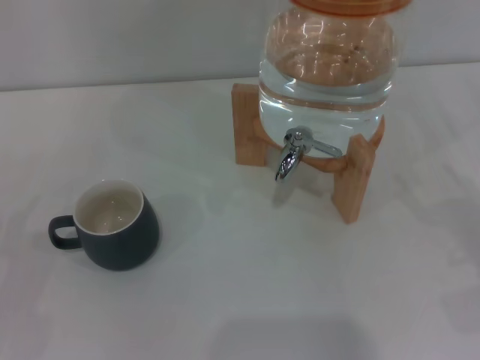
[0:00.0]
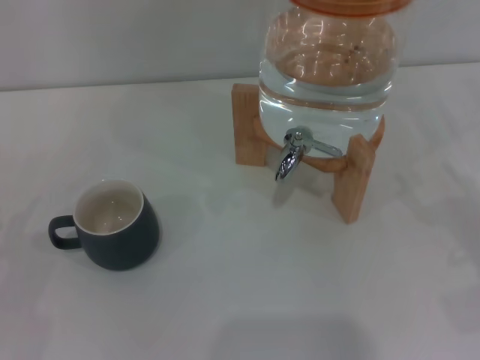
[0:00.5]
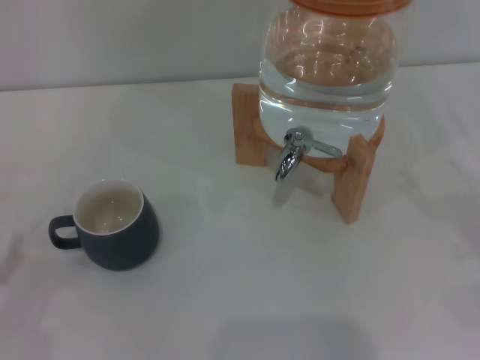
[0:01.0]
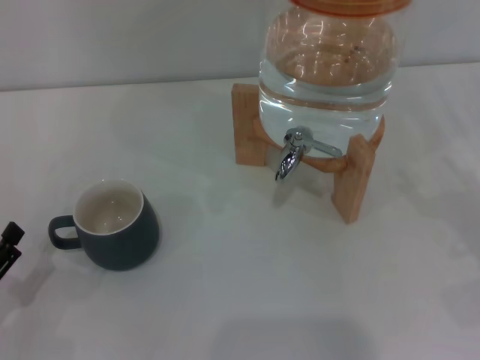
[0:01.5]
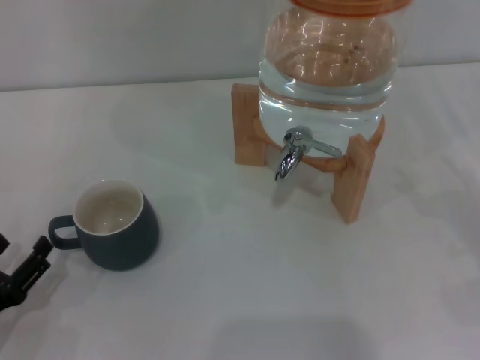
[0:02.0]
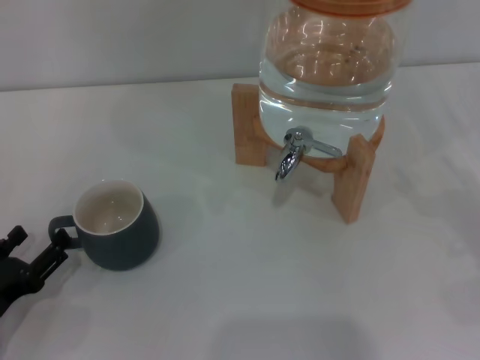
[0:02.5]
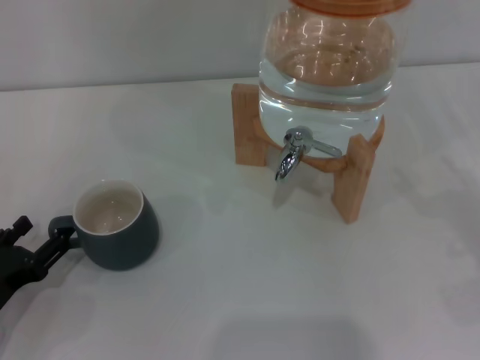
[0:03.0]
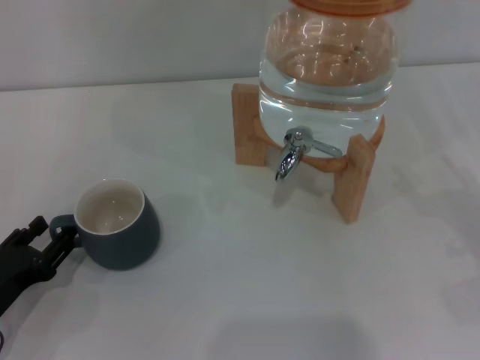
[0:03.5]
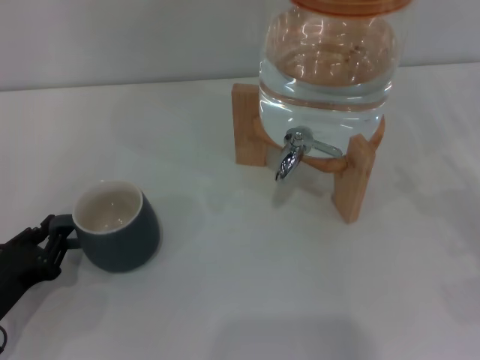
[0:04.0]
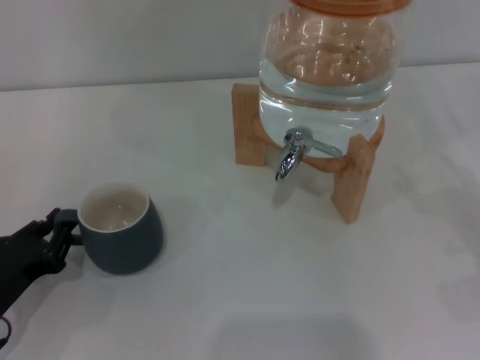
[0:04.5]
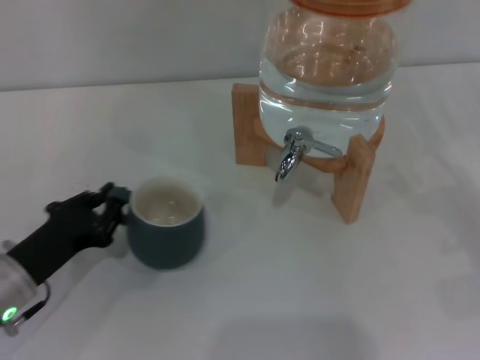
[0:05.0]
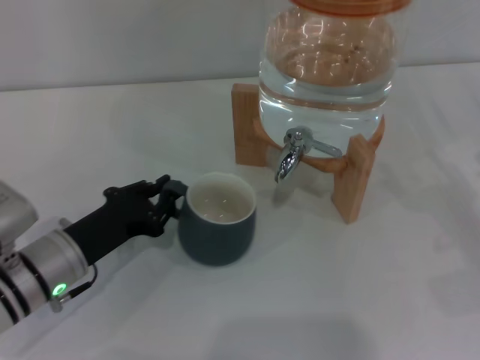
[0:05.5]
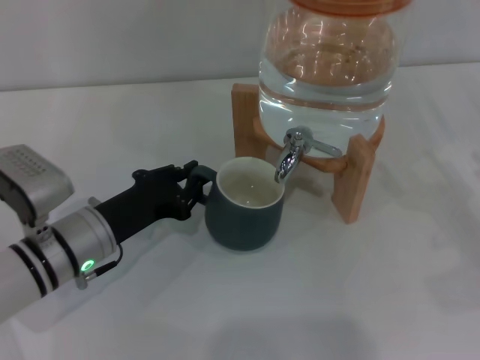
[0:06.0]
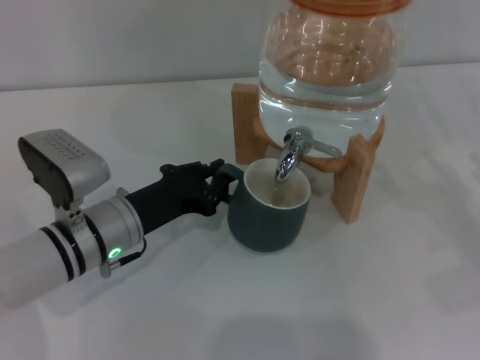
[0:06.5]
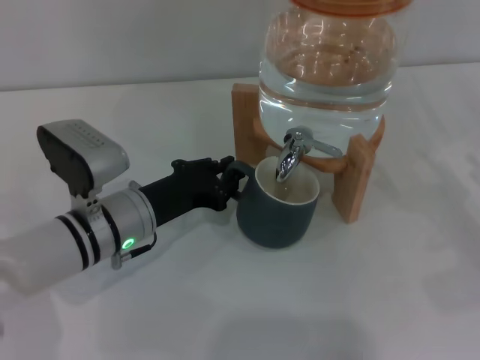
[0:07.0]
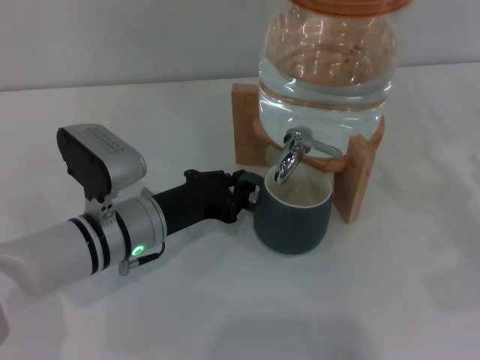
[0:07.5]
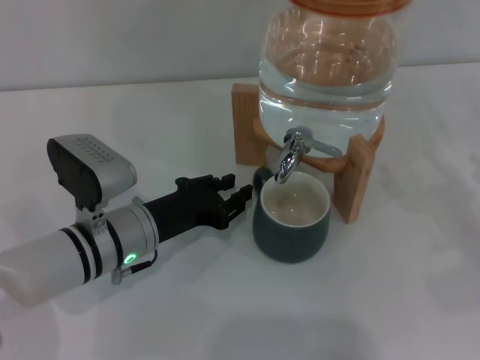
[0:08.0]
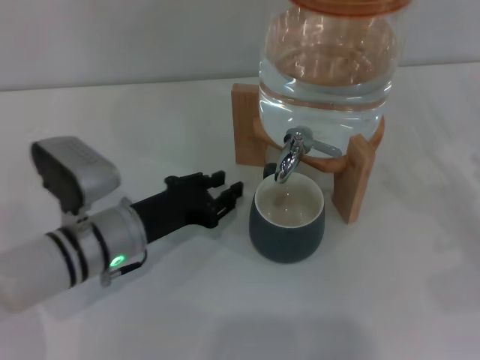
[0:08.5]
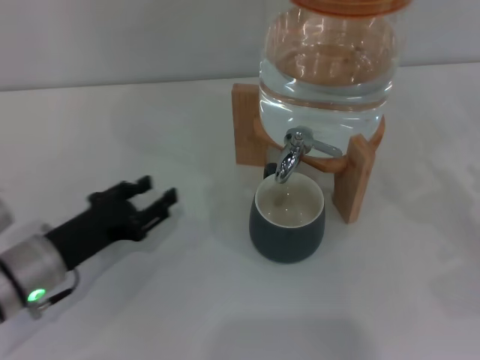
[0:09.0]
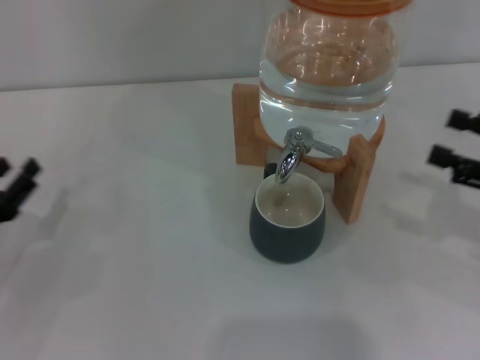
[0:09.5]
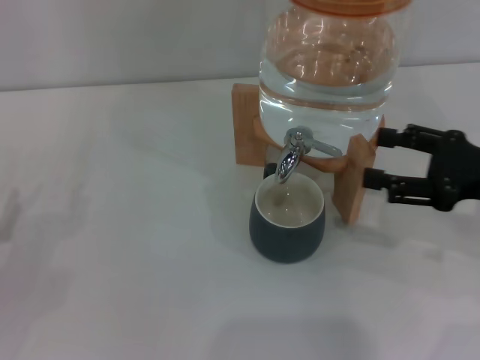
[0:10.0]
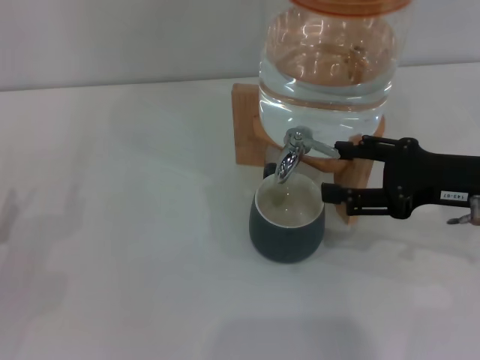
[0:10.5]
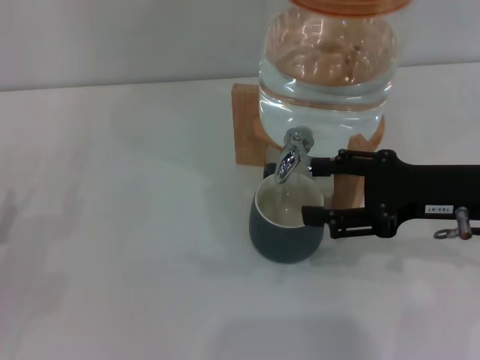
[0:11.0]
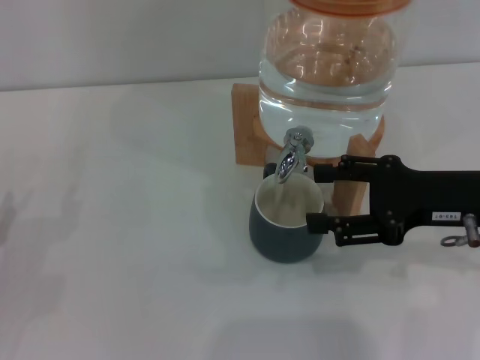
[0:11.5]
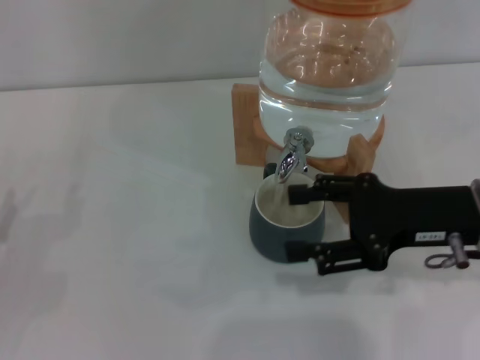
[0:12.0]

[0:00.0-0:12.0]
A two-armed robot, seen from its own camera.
Task of the whole recording: the left gripper pick up the black cup and place it horizontally under the faucet, the right gripper turn on the faucet to fill the cup, and then turn off the faucet.
Step, 0:00.0 to 0:08.5: Move the cup beneath the water dispenser nozzle with the left gripper.
Step, 0:09.0 to 0:11.5: Open the dispenser valve and fill the cup with water with the right gripper.
0:00.0 to 0:02.0: The left gripper shifts approximately 10 cm downward and to the right.
0:02.0 to 0:04.0: The left gripper closes its fingers.
0:04.0 to 0:06.0: The left gripper goes approximately 15 cm to the right and forward.
0:06.0 to 0:08.0: The grippers stay close to where they were, moving slightly.
0:08.0 to 0:10.0: The left gripper goes approximately 20 cm to the left, and opens, while the right gripper heads to the left and upward, covering approximately 10 cm.
0:10.0 to 0:12.0: The right gripper moves to the left, some 5 cm.

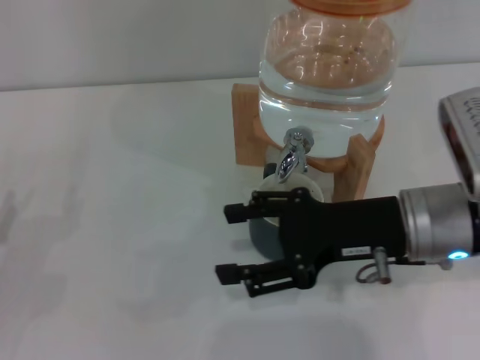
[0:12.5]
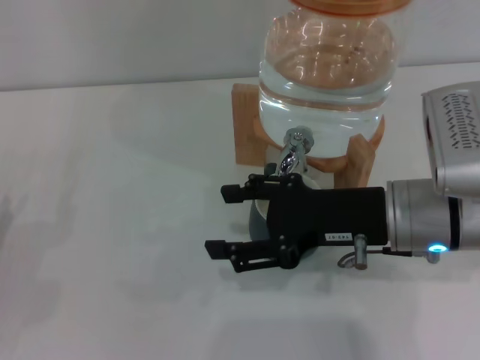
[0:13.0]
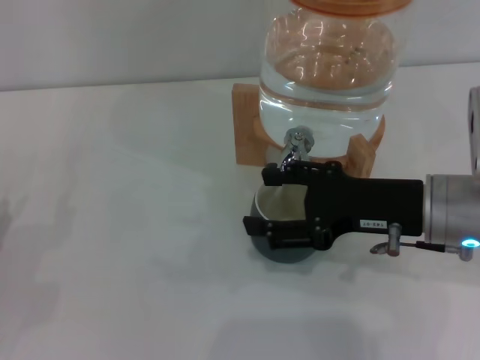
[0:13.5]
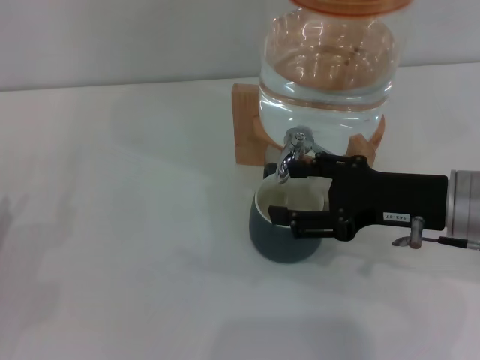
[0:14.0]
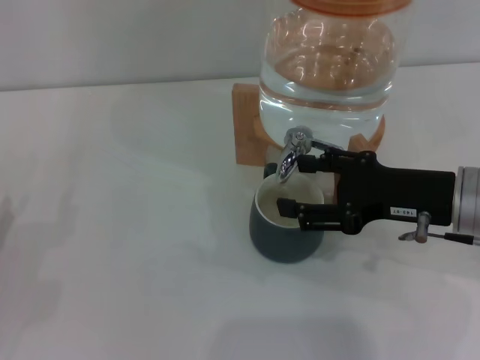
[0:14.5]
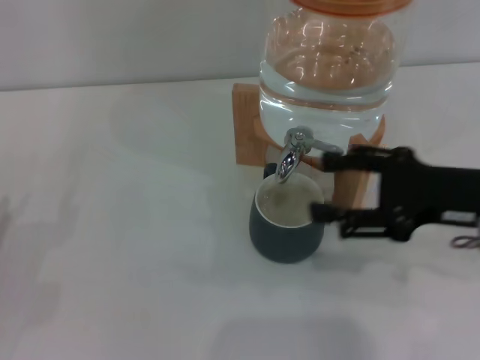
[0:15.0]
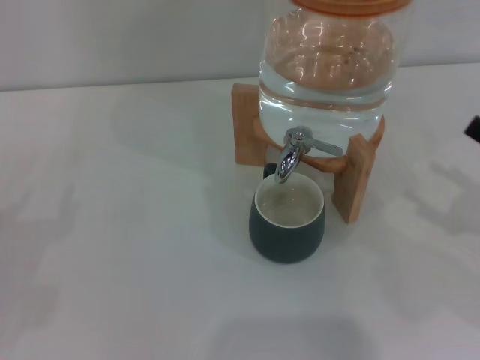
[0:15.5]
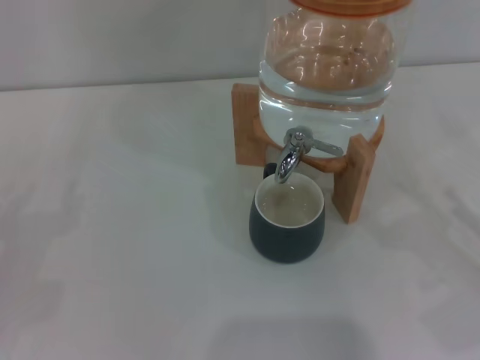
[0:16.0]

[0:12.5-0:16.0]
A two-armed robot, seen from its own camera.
Task of the whole recording: the left gripper pick up the black cup and place it horizontally under the faucet, the right gripper turn on the faucet to fill the cup, and then turn off the faucet.
Step, 0:12.5 to 0:15.0: Close the dispenser valve with the right gripper.
0:12.5 to 0:14.5: The grippers stay close to where they were, moving slightly.
0:14.5 to 0:16.0: The right gripper goes some 20 cm to the right, backward and downward.

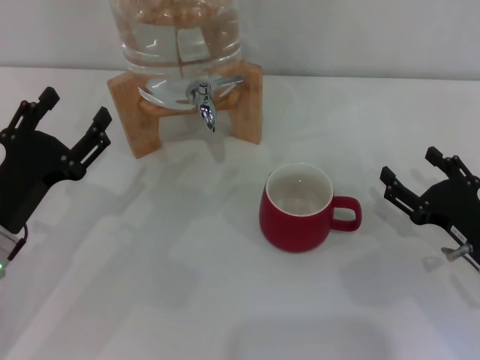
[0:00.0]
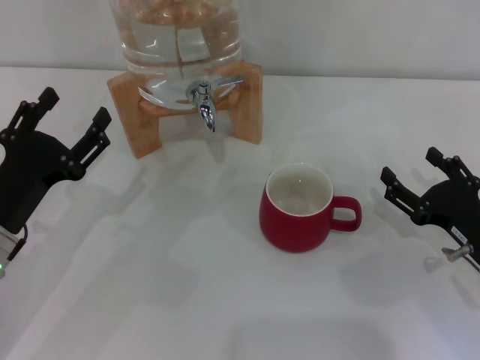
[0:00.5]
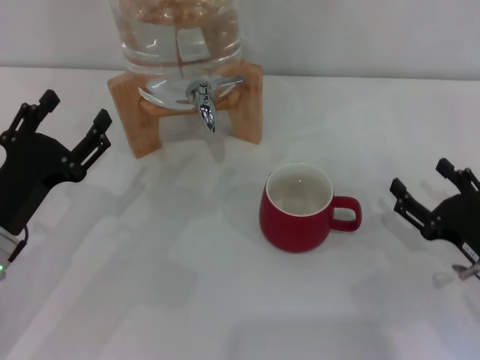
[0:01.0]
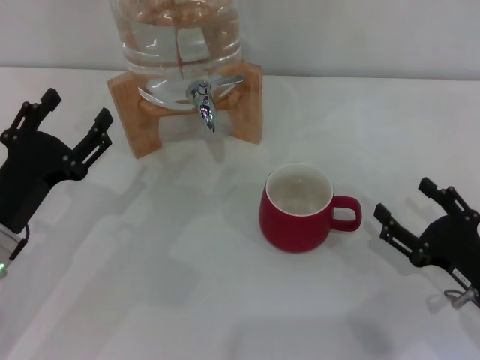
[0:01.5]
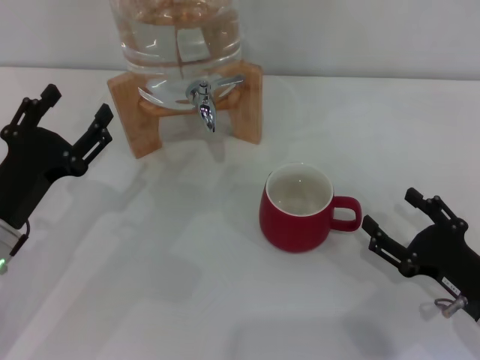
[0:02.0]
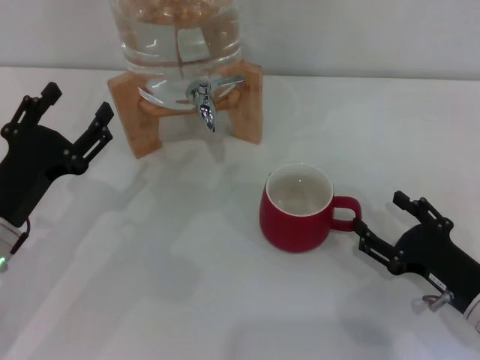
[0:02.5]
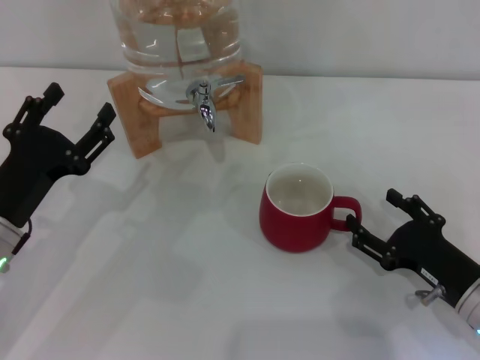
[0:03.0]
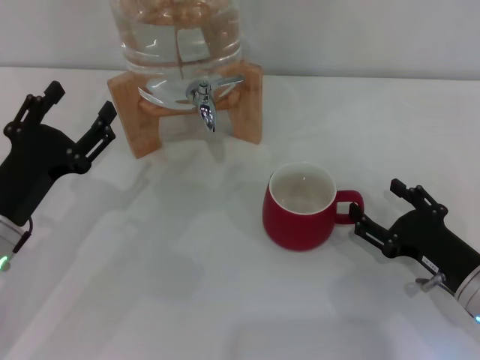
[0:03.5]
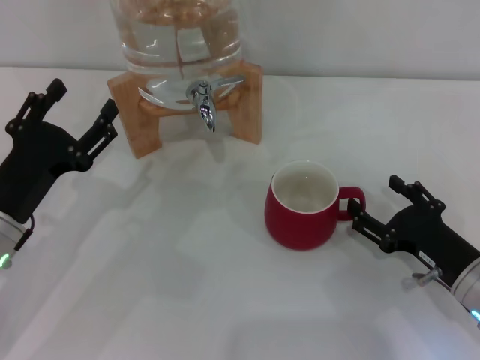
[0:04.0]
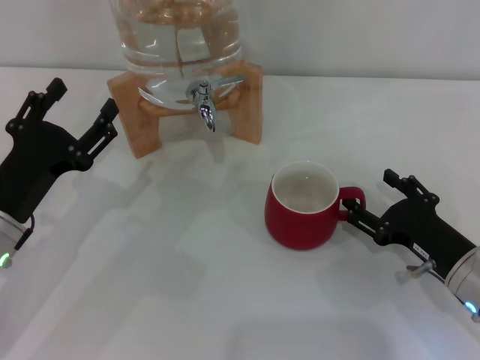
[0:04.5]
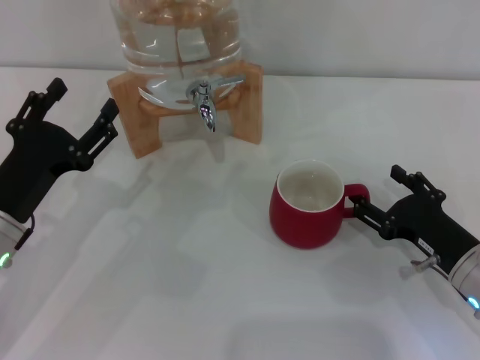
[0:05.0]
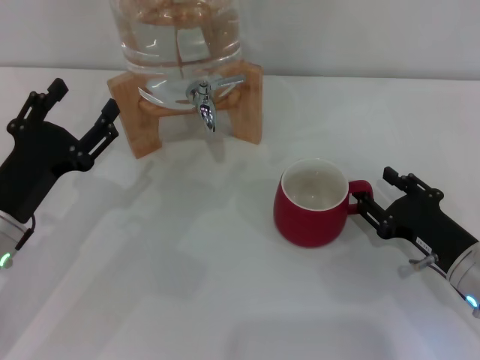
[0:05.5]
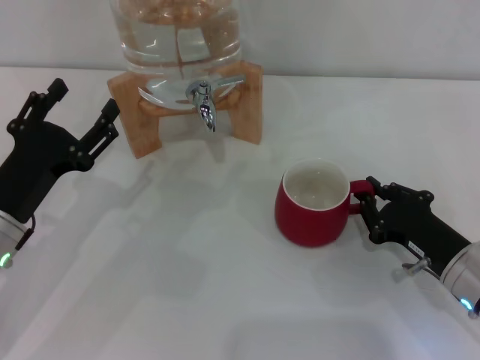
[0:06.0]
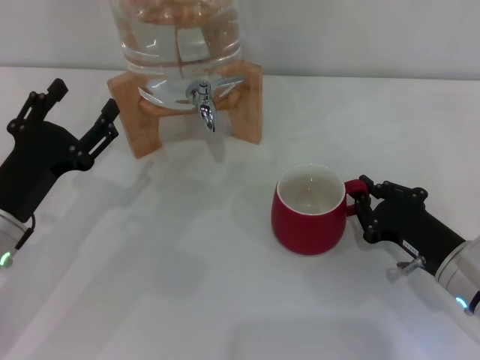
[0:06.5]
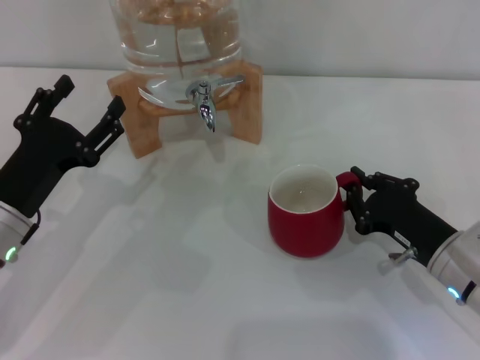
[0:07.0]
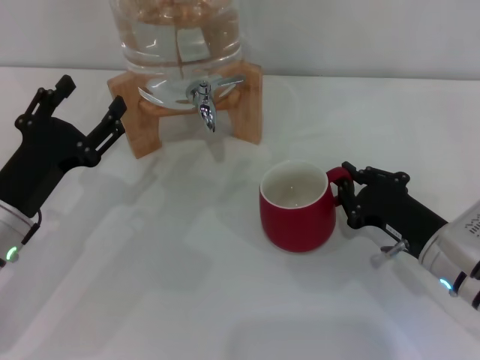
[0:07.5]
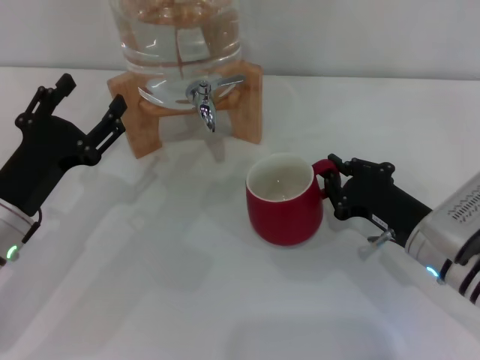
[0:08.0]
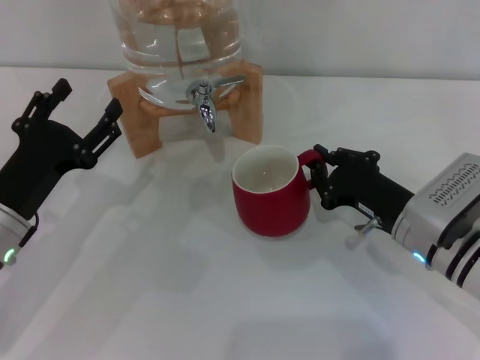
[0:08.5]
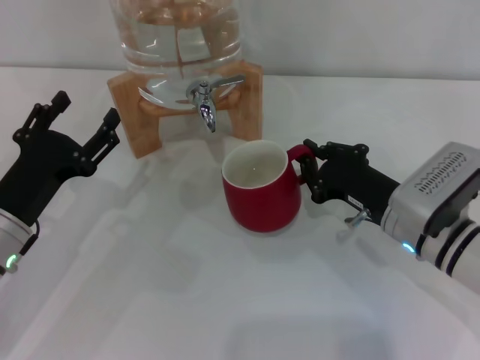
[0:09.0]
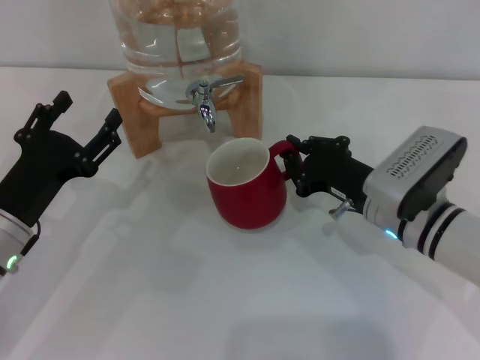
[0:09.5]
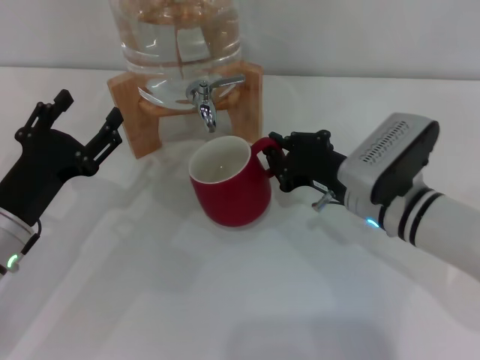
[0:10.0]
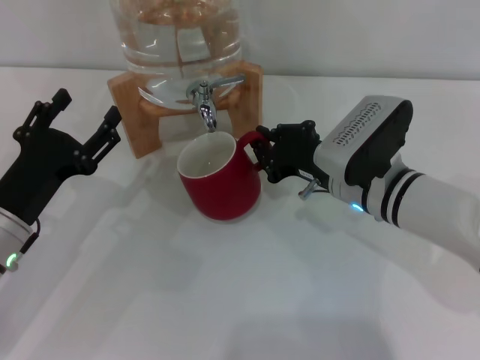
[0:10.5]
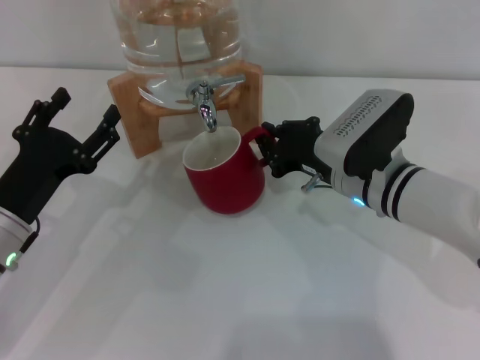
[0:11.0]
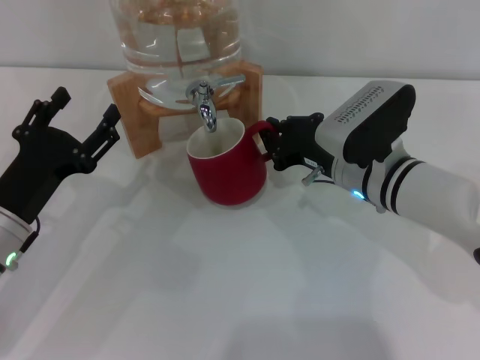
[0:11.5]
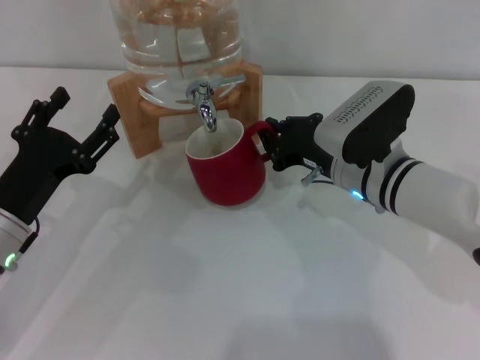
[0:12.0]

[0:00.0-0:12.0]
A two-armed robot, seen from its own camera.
Task of the whole recording: the right gripper pick up the red cup and place it horizontally under the faucet, the left gripper turn on the faucet to fill the cup, and then turn off the faucet.
0:00.0 to 0:04.0: The grippers make only small movements.
0:04.0 to 0:06.0: The right gripper closes its fingers.
0:06.0 to 0:08.0: The right gripper shifts by roughly 5 cm.
0:08.0 to 0:10.0: The right gripper shifts about 5 cm to the left.
0:10.0 to 0:12.0: The grippers stay close to where they were, moving slightly.
